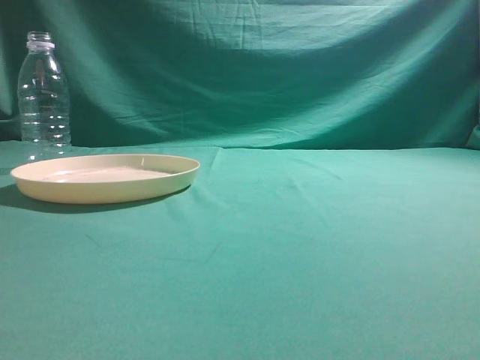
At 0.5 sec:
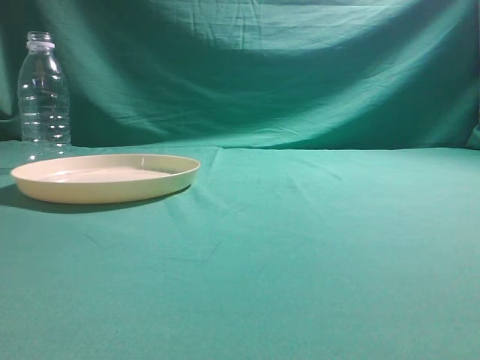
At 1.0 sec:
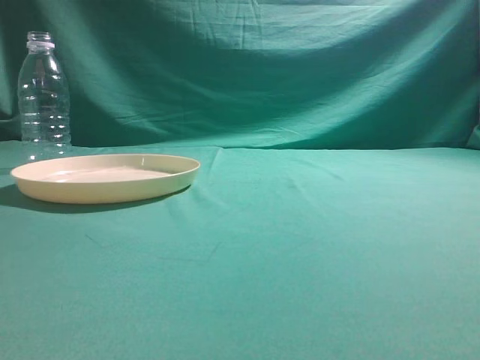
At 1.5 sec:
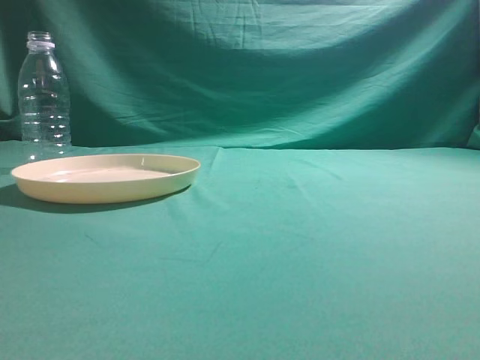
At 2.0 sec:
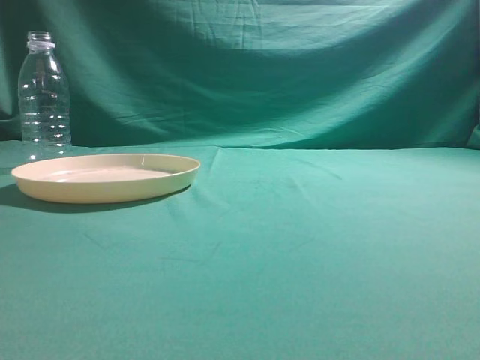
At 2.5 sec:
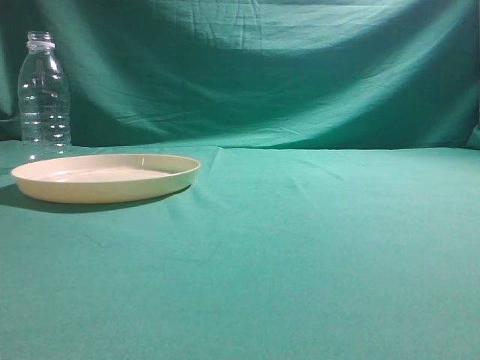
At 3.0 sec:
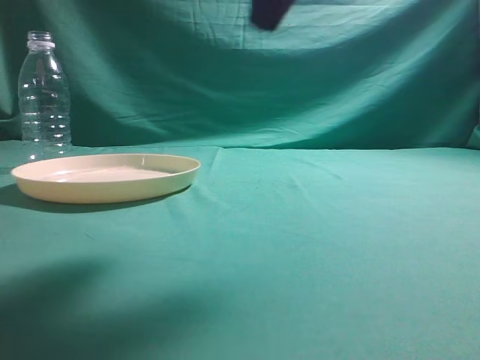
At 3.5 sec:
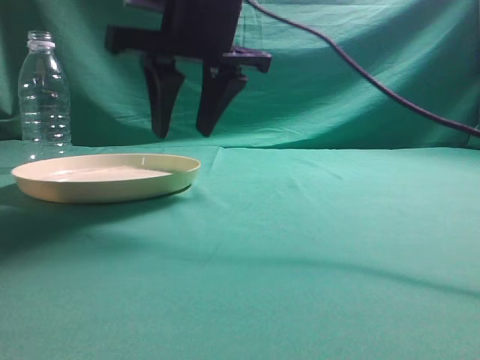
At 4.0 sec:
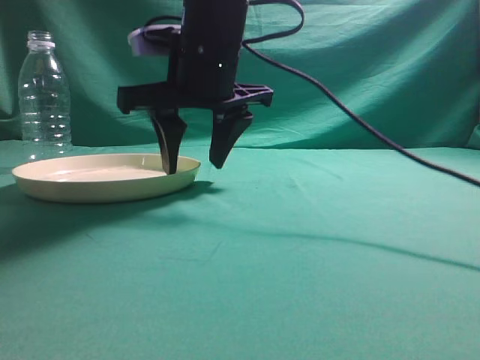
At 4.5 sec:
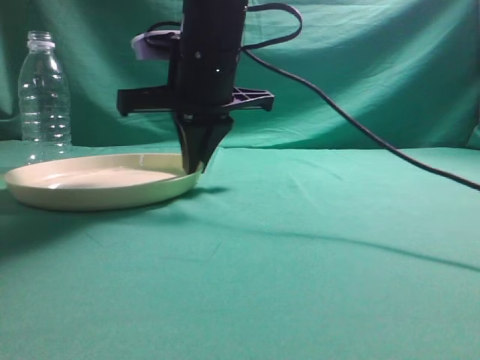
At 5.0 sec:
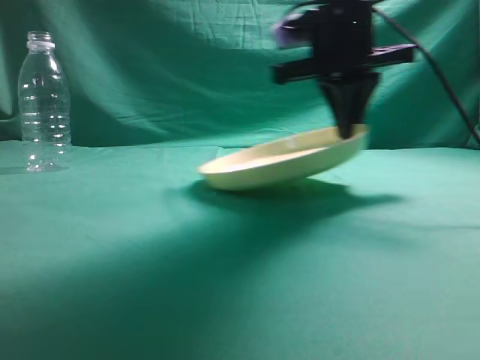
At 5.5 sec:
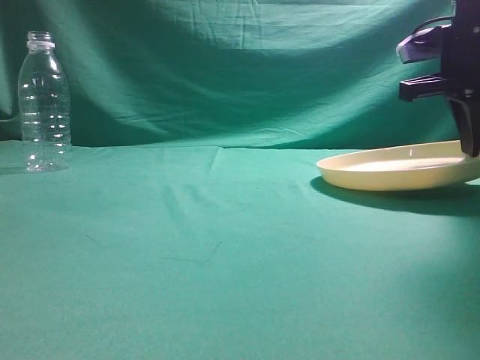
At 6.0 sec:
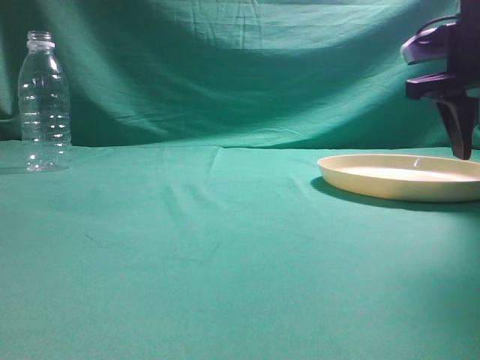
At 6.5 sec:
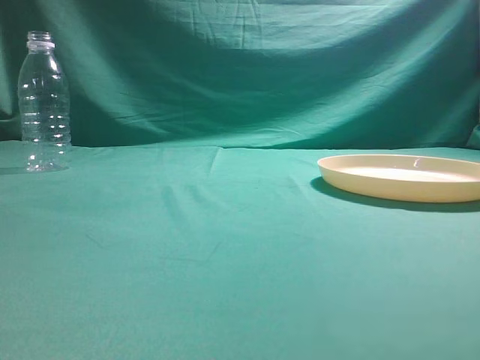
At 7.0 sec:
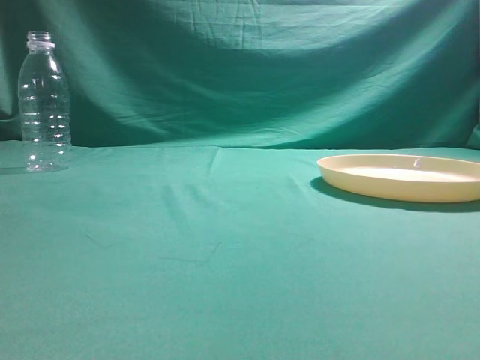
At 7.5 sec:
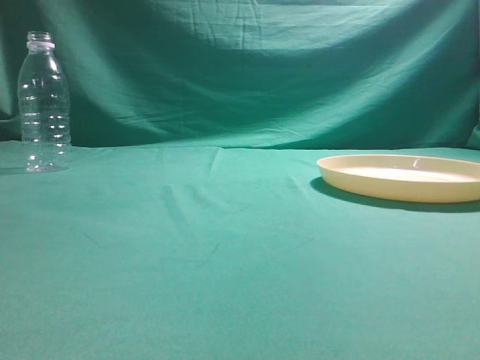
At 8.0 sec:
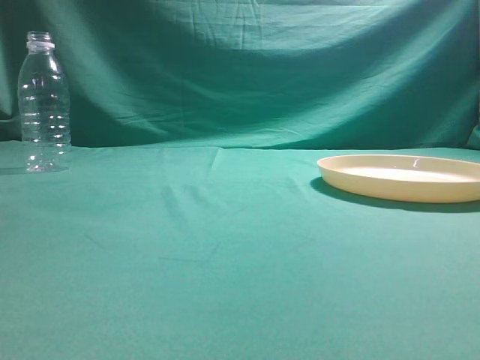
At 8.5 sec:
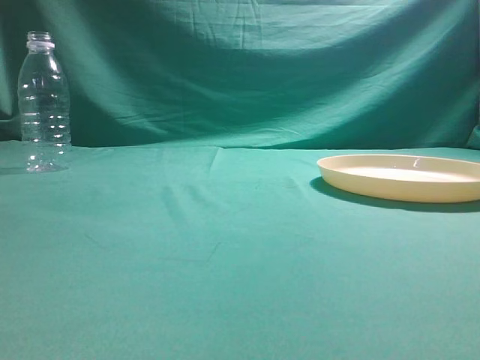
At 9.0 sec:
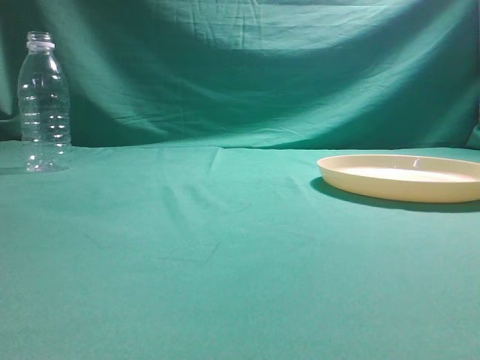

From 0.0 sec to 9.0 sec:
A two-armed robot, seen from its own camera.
Step, from 0.0 sec to 4.5 sec: Pick the container that can hold fruits.
Step, from 5.0 sec to 6.5 sec: Move the picked object to the right side of the table.
From 2.0 sec to 4.5 sec: The right gripper heads to the left and forward, covering approximately 40 cm, and opens, then closes again.
From 4.5 sec to 7.0 sec: The right gripper heads to the right, upward and backward, covering approximately 40 cm, and opens and closes again.
